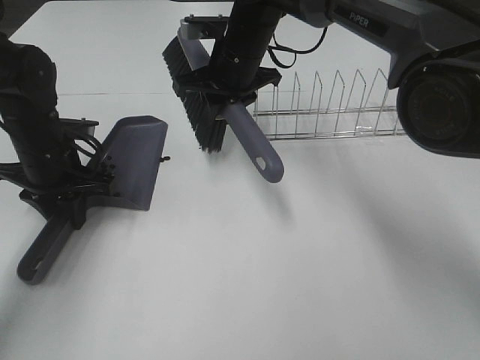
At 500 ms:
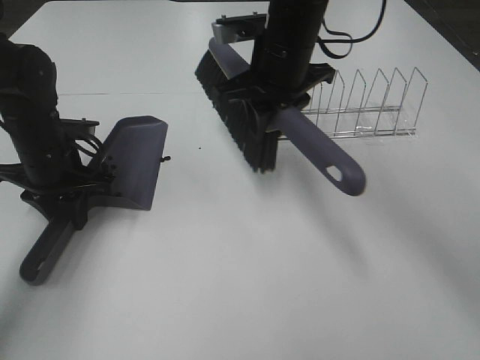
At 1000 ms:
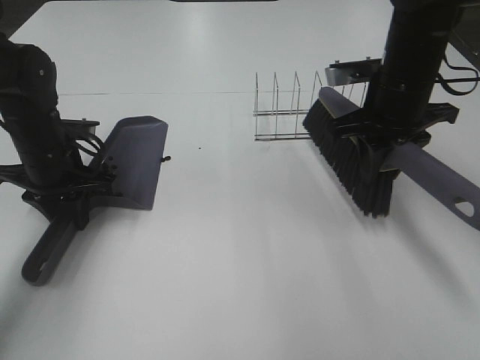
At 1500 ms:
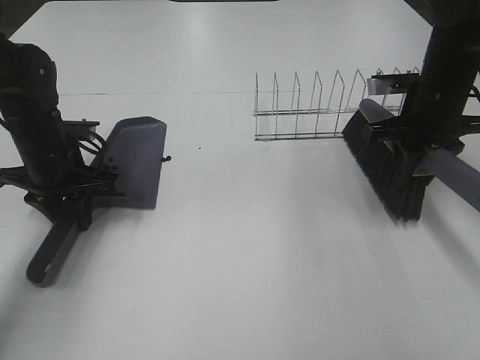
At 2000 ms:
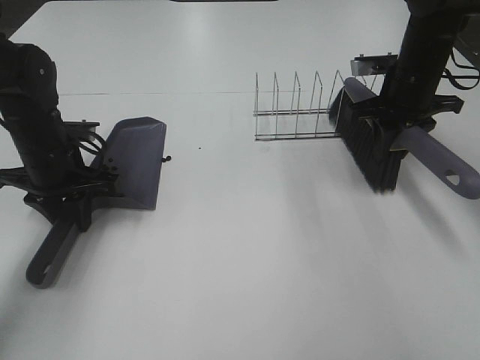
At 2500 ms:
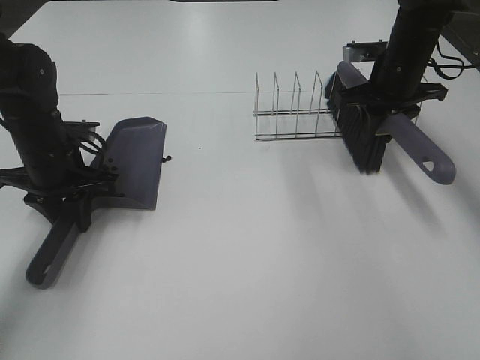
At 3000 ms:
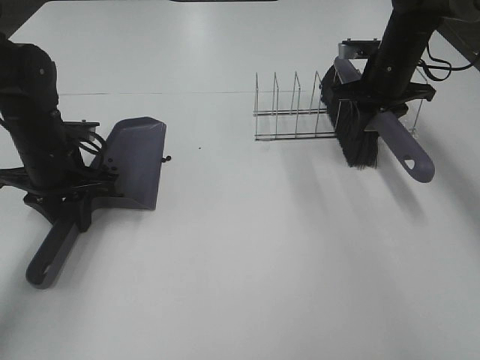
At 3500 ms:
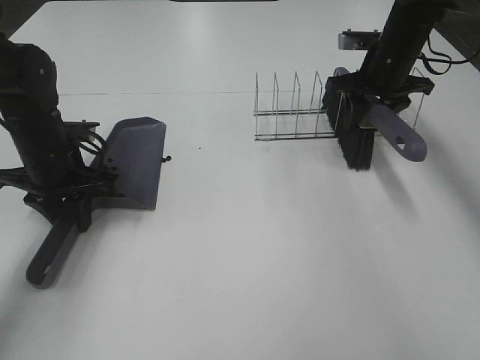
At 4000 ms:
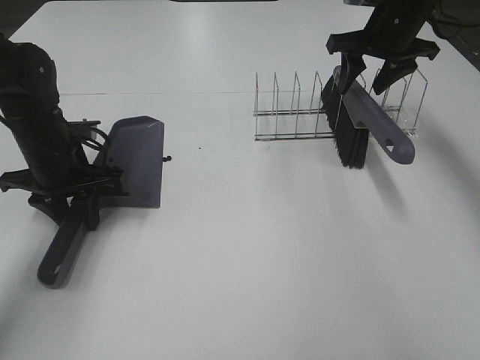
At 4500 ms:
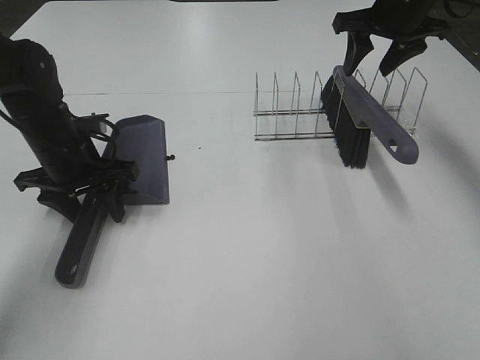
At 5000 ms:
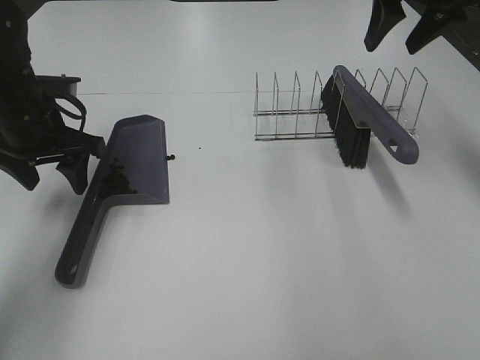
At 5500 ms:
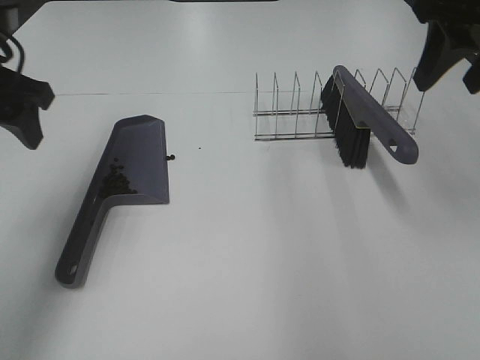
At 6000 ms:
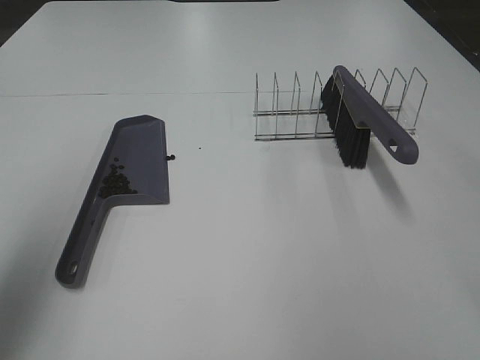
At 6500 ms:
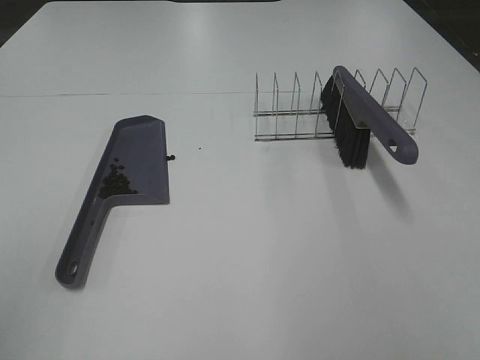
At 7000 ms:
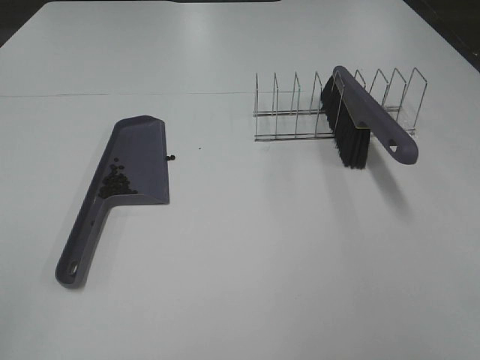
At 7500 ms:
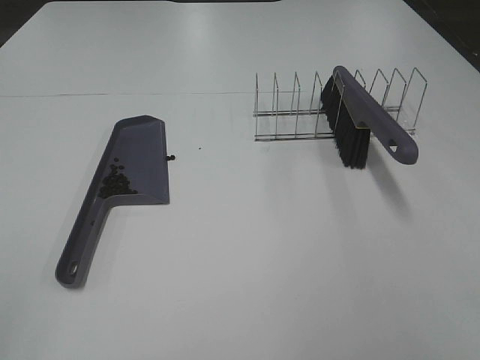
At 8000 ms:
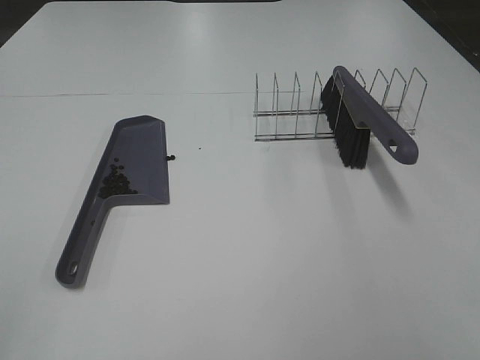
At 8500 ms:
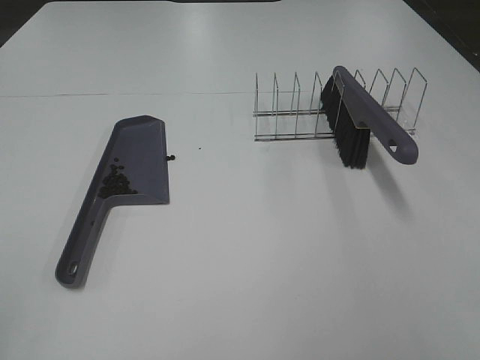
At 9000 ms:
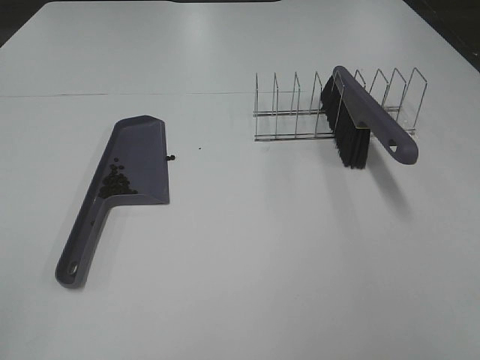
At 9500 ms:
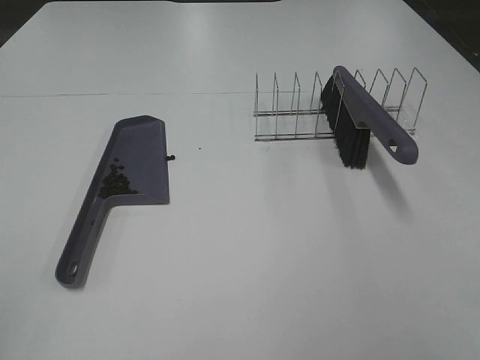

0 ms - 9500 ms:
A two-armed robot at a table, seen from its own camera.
Task of the whole recording: Sweep Coffee Bean.
Step, 0 ms - 3500 ms: Right hand:place the broom on the rack.
Step, 4000 ms - 4500 ms: Left hand:place the dustpan on the table.
0 ms - 2000 ms: The right gripper shifts roughly 25 cm to the right.
2000 ms - 4000 ms: The right gripper travels upward and forward by roughly 10 cm, and opens up.
4000 ms - 5500 ms: The right gripper moves backward and upward, approximately 20 cm; the left gripper travels upward by roughly 15 cm, and opens its fingers.
5500 ms - 7500 ms: Both grippers travel together backward, about 30 cm.
7500 ms - 9500 ms: Both grippers stay about where they are.

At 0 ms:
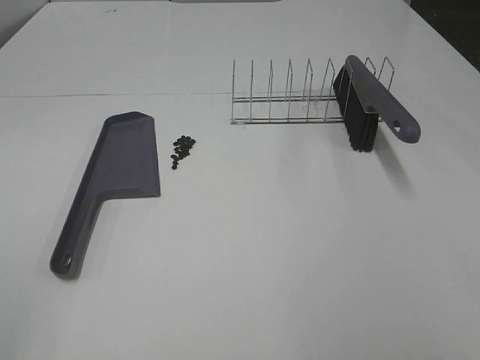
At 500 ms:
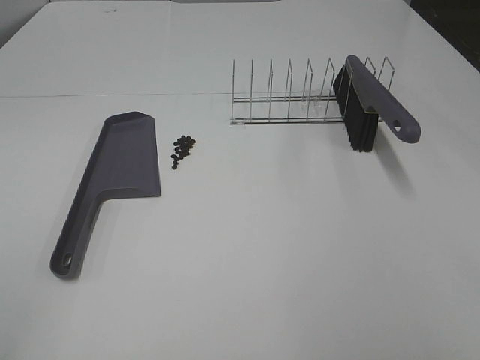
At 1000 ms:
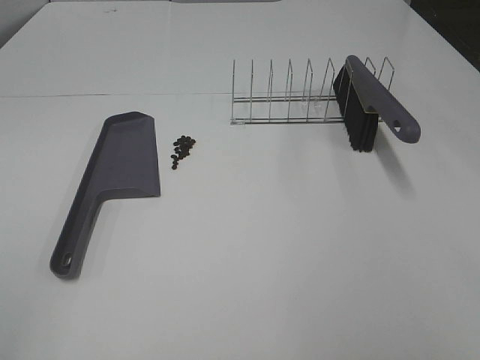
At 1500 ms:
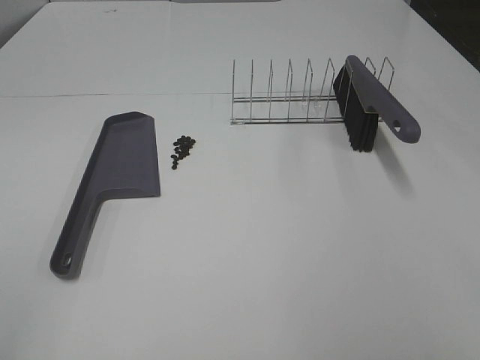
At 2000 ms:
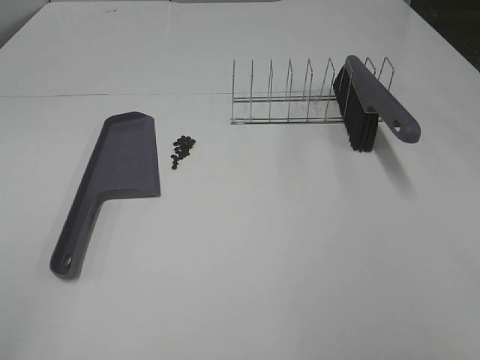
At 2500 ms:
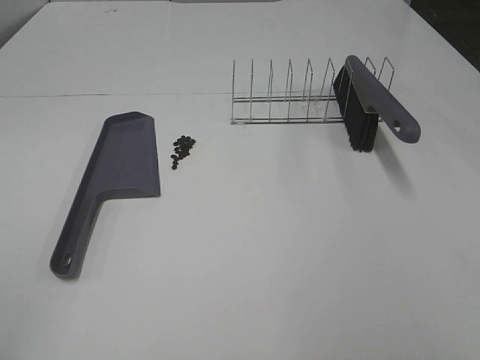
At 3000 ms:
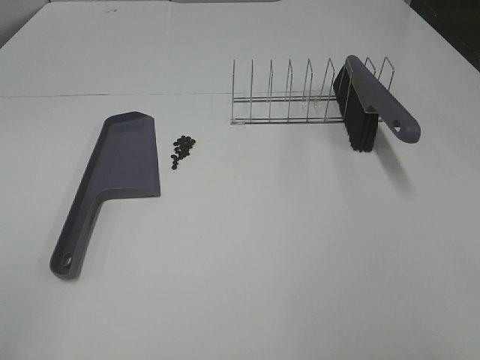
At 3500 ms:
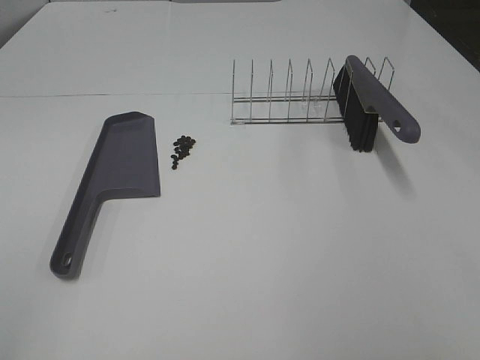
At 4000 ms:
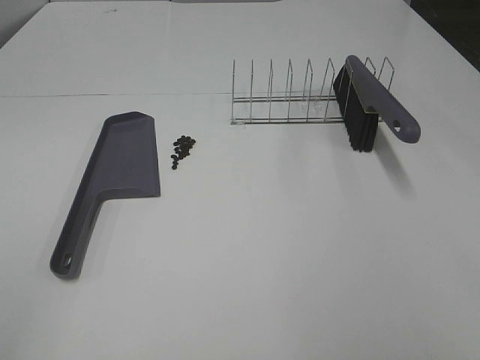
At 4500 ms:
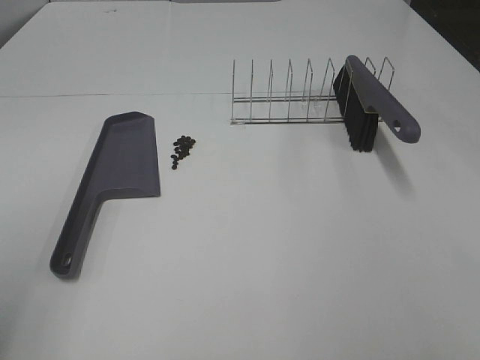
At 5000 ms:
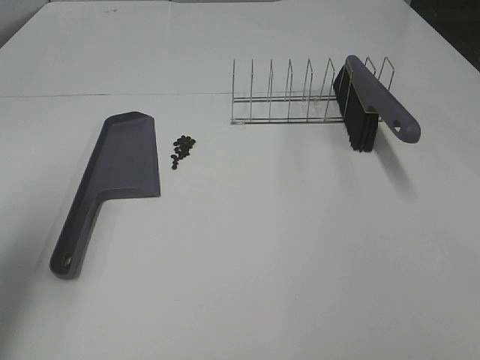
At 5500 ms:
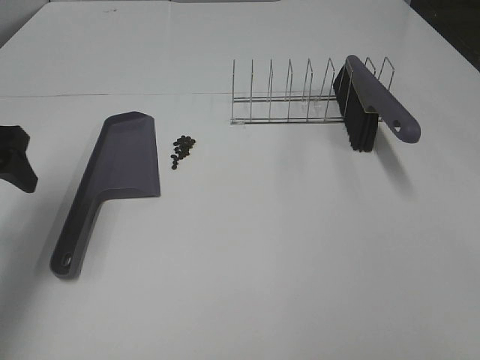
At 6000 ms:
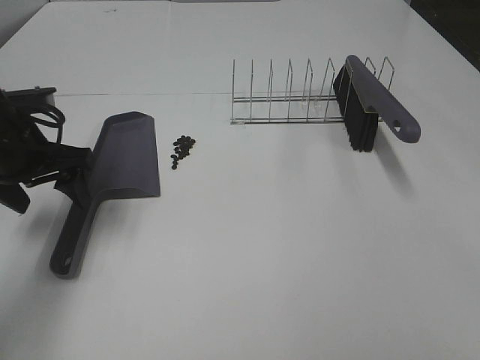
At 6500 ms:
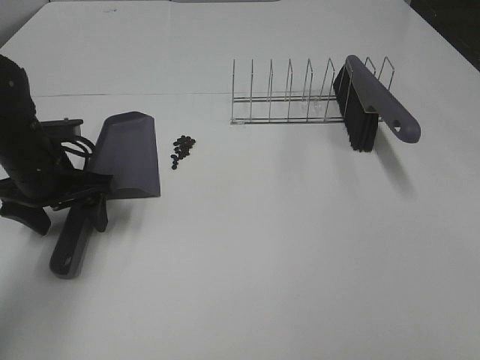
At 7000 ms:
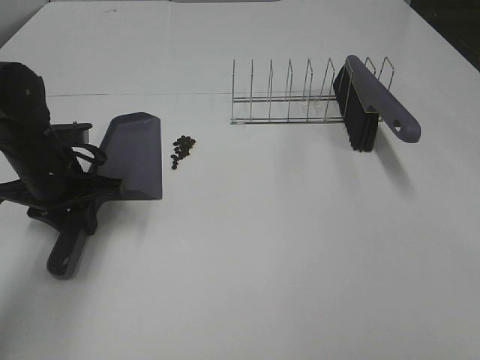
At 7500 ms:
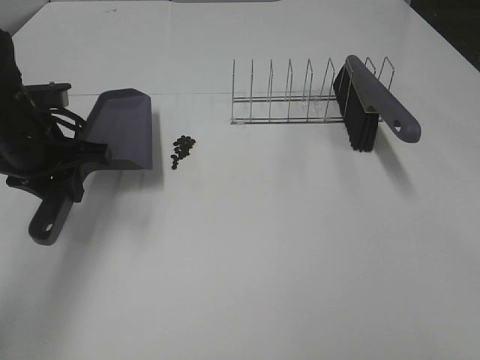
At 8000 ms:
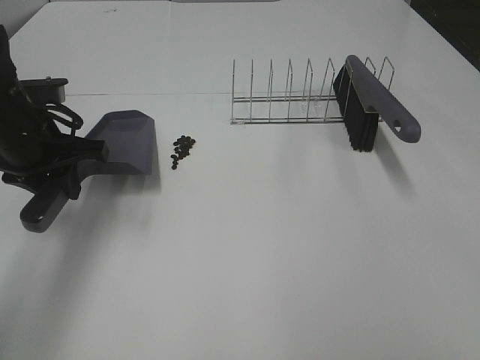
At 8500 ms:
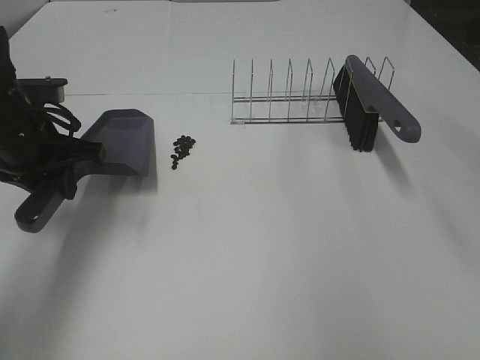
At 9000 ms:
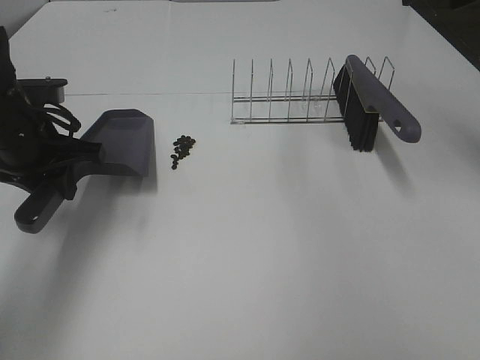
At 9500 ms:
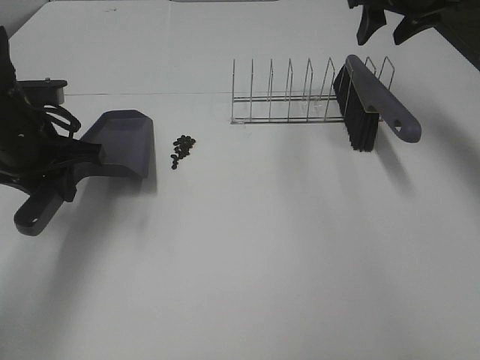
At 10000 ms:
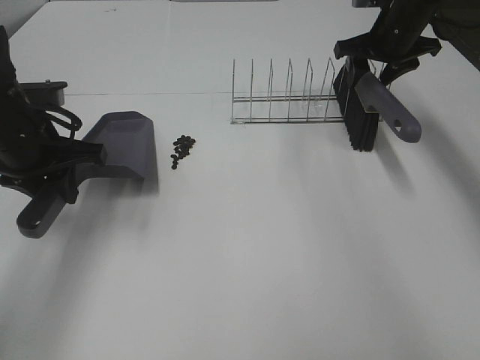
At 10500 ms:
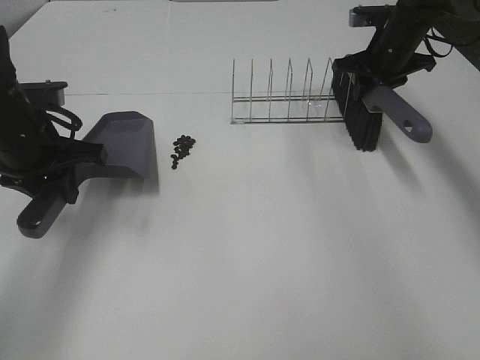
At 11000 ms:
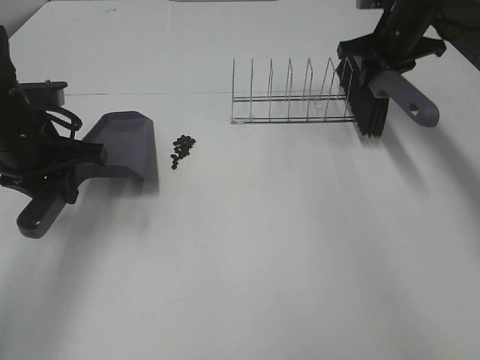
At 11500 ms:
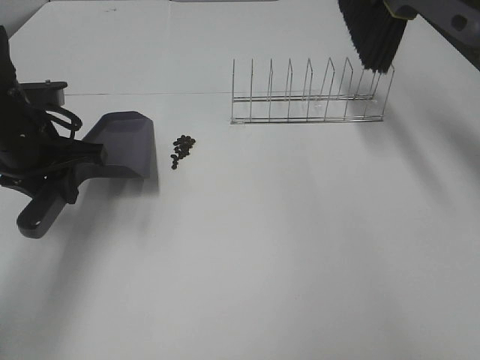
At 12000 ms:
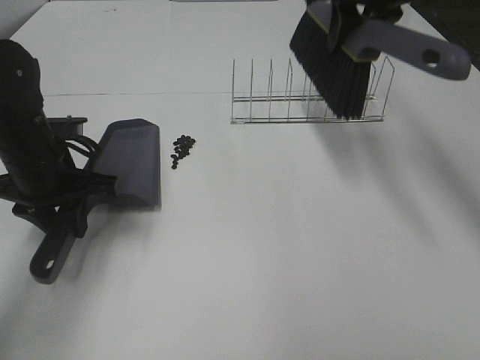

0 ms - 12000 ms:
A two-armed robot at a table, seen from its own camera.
Task of the whole recording: Sweep Coffee Bean.
Step, 0 ms - 6500 ms: Left hand: grab the dustpan.
Step, 8000 ms - 10000 ms: Right hand:grab the broom.
0 ms - 4000 ms: The two grippers keep their place.
4000 ms - 6000 ms: The left gripper shifts roughly 35 cm forward.
6000 ms - 8000 ms: The left gripper closes up.
8000 ms - 10000 ms: The right gripper travels forward by roughly 50 cm.
10000 ms - 12000 ms: The right gripper travels upward, backward and to the left by about 15 cm, and closes.

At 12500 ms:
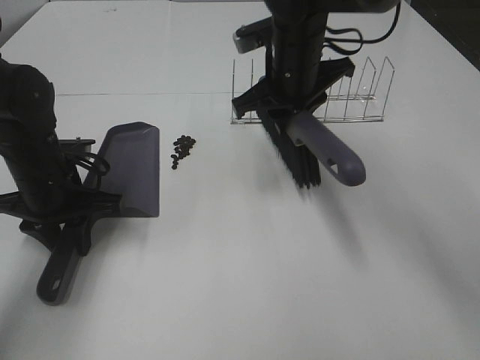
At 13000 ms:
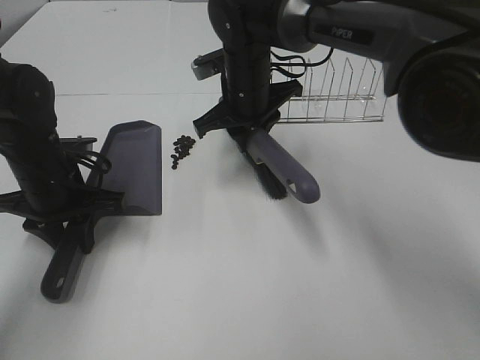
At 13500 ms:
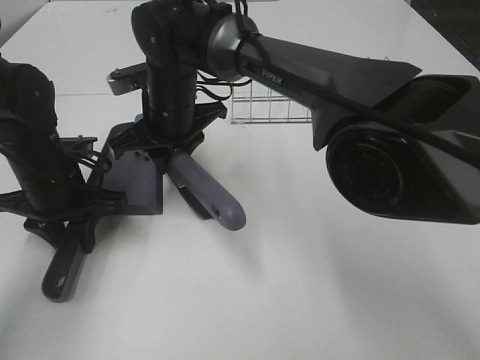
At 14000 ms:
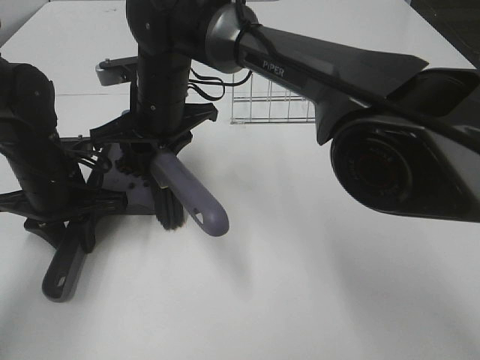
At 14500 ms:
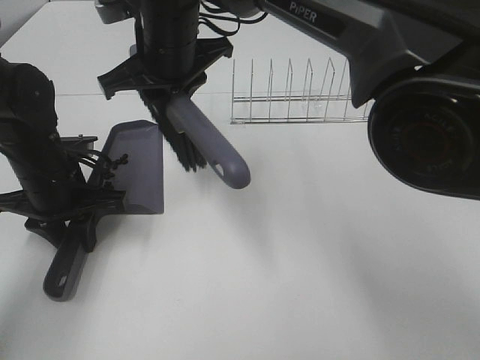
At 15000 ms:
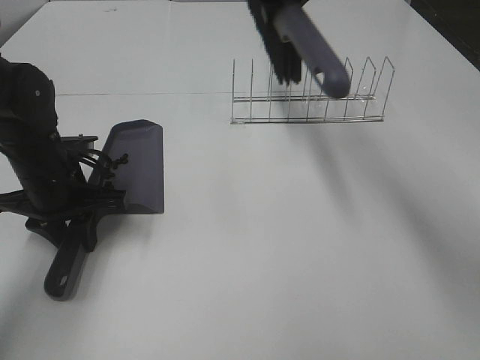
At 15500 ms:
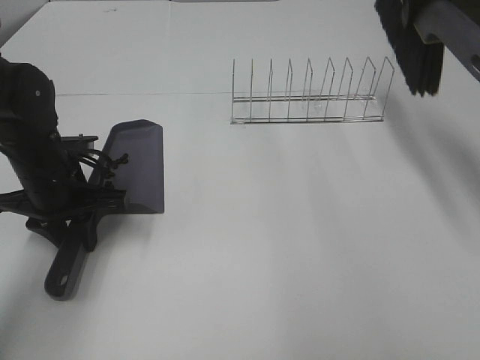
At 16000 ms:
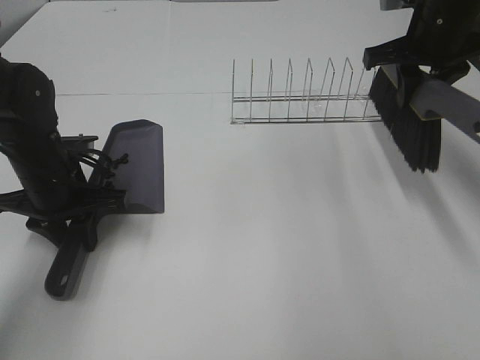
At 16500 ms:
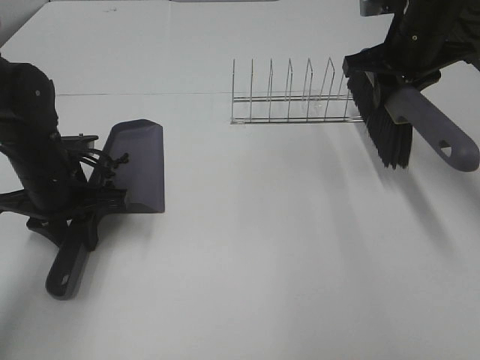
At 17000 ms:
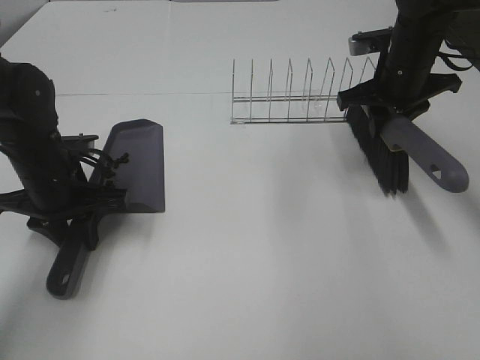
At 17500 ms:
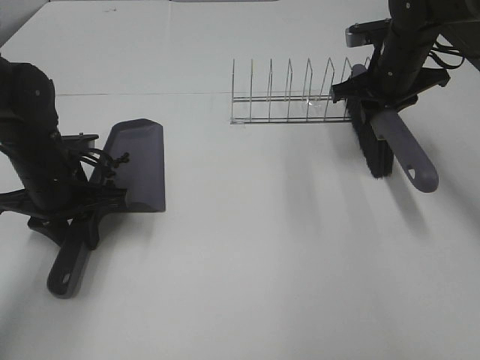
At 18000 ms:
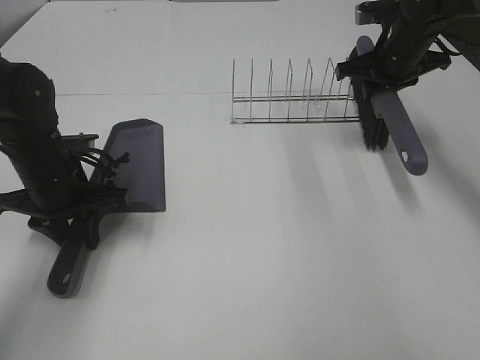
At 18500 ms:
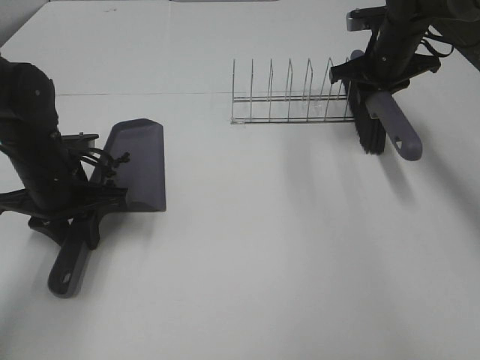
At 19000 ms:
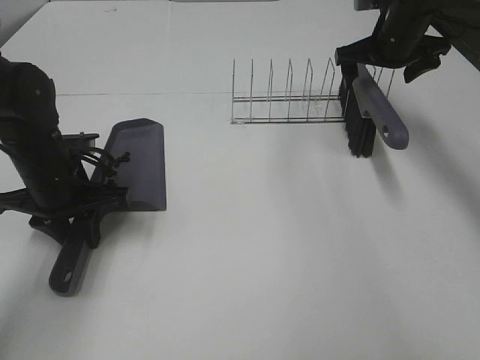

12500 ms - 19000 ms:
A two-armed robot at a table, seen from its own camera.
Task of the whole recording: Sweep Coffee Bean.
Step, 14500 ms - 18500 ms: Right hand:place the broom on the rack.
12500 ms - 14500 ms: The right gripper is displaced to the left by roughly 15 cm.
14500 ms - 17000 ms: The right gripper heads to the right, covering some 30 cm.
17000 ms - 19000 ms: The right gripper heads forward, covering about 5 cm, and opens up.
